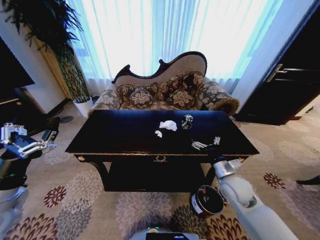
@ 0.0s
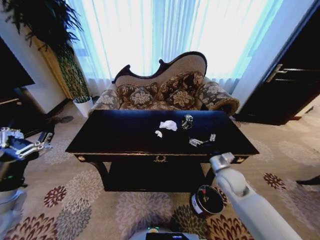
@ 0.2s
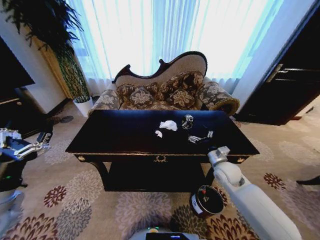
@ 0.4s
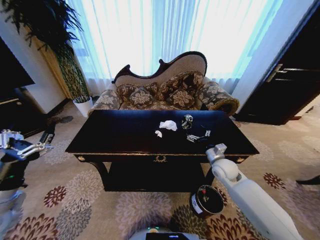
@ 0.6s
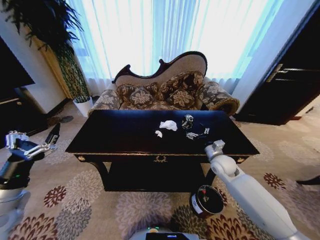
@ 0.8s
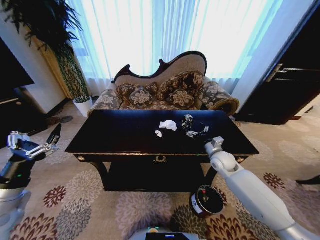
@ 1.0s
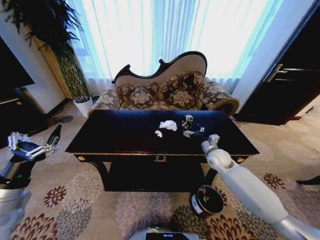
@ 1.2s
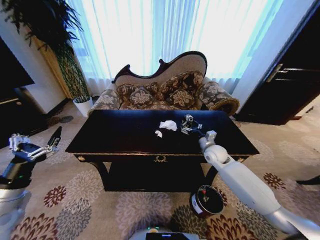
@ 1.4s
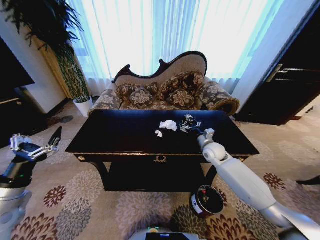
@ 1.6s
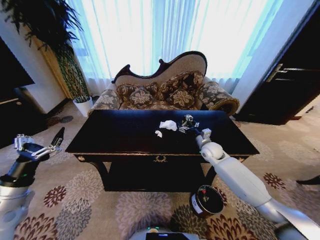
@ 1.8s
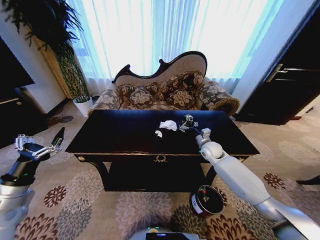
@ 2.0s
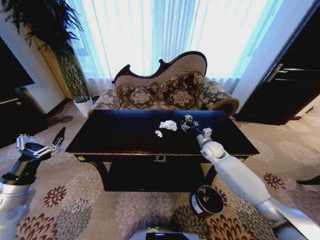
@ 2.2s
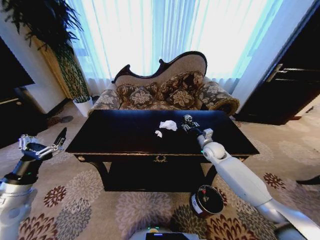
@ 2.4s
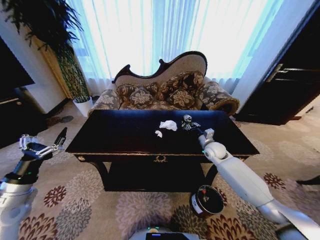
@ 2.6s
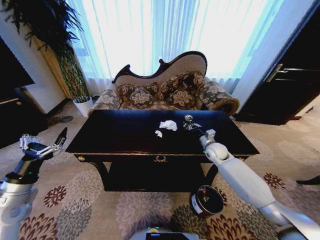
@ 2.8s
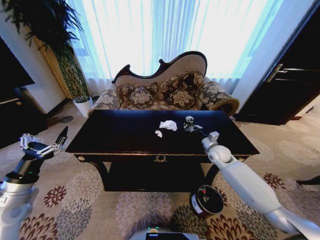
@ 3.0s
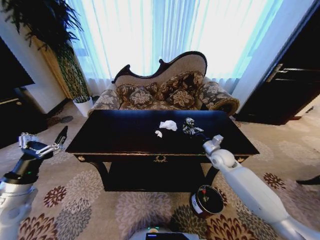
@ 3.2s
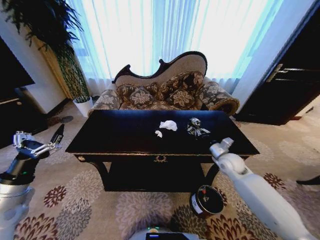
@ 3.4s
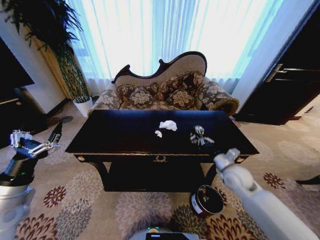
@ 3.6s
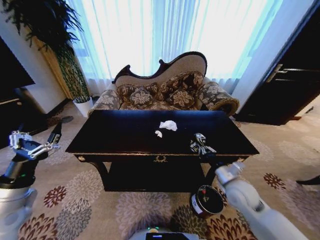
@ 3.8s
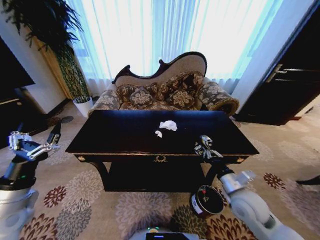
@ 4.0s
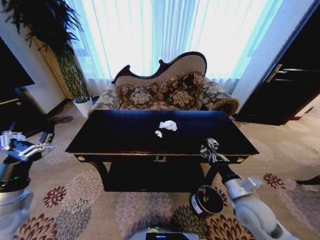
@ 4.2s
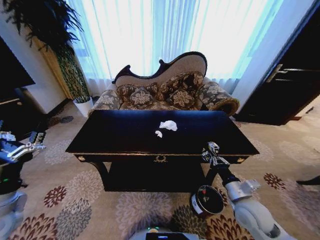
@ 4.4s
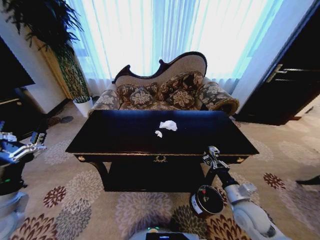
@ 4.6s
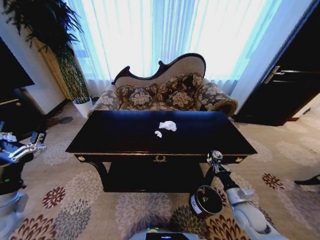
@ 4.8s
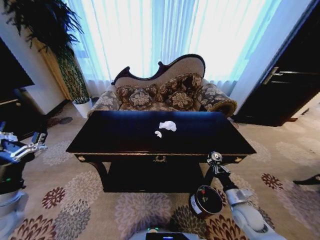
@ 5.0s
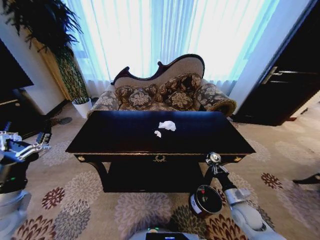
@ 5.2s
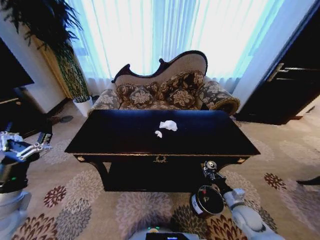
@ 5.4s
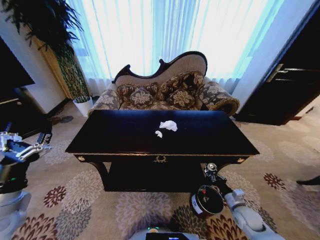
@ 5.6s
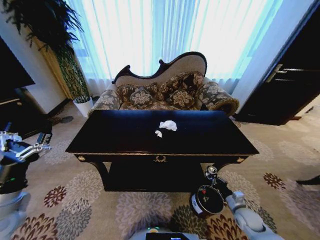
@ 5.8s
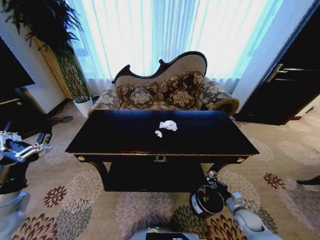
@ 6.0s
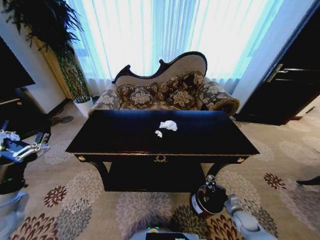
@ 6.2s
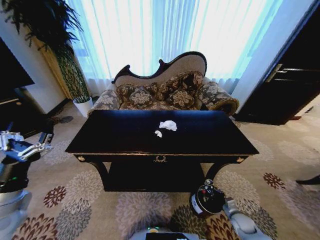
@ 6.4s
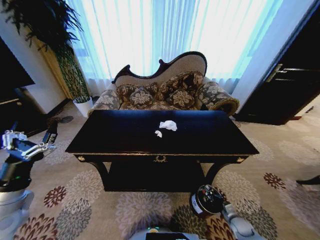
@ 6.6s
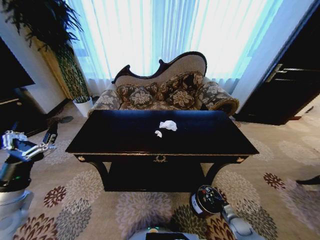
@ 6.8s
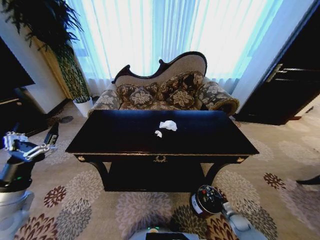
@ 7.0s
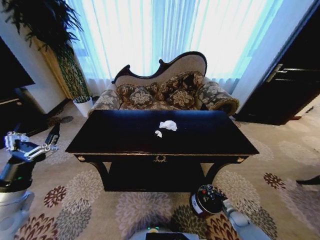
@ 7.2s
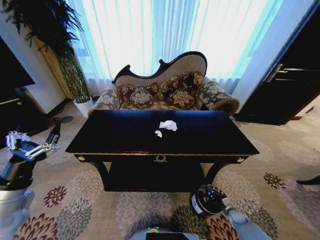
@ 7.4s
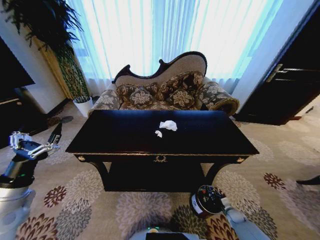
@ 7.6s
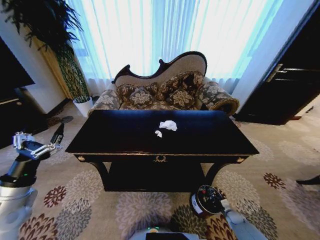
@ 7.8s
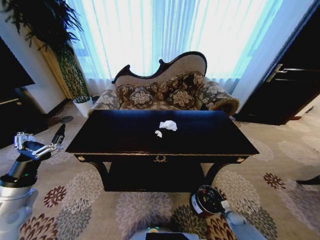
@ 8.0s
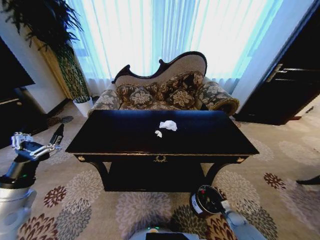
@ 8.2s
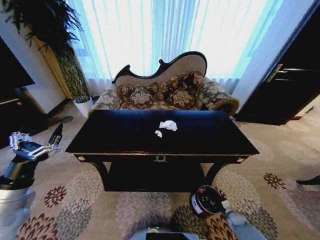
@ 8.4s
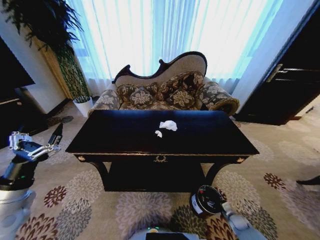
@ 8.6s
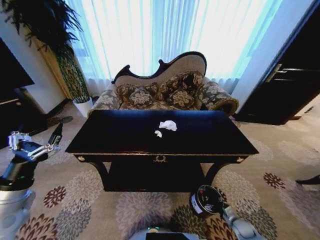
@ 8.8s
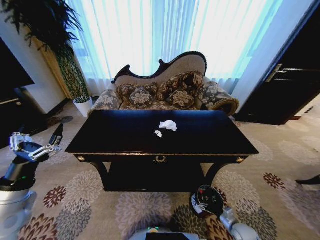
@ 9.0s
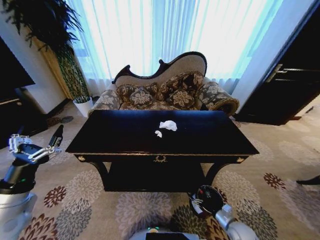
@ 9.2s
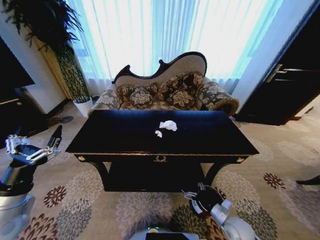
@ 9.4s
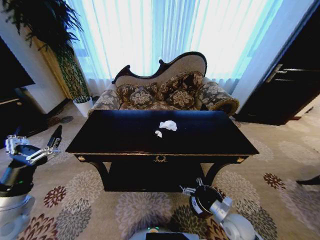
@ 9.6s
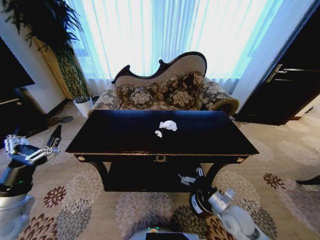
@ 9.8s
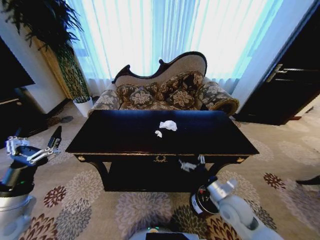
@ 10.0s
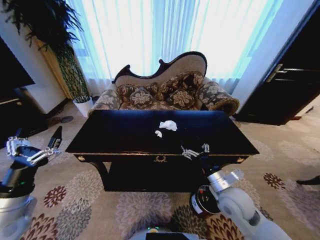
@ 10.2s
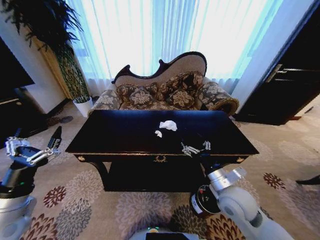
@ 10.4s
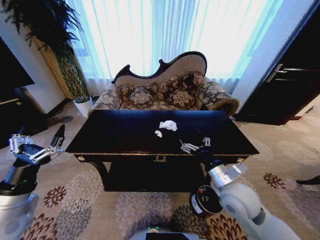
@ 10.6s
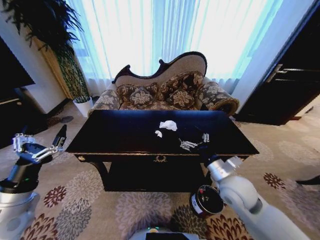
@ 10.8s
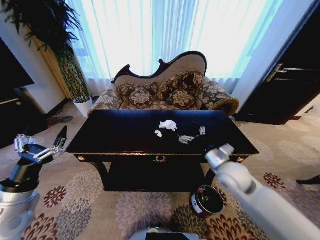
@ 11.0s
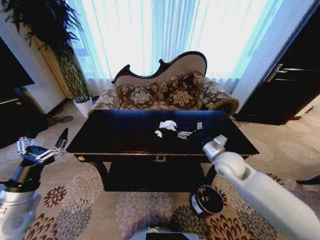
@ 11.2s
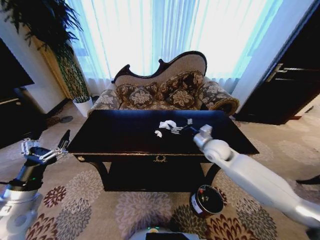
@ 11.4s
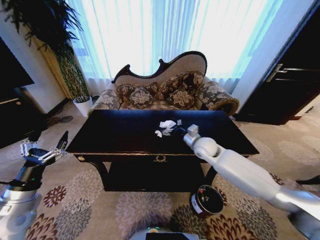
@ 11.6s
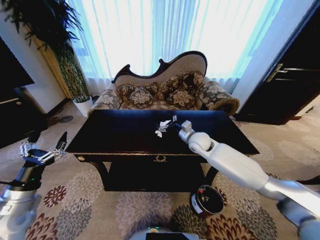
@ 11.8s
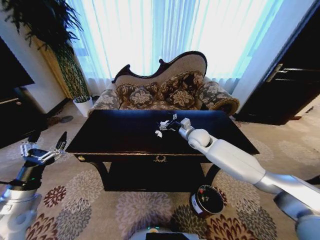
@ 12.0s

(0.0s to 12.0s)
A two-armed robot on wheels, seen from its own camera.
Task of the whole recording: Move to the front of the table and place the trash on the table into the trash bin.
0.0s - 1.6s: The right gripper shifts approximately 20 cm forward. Meanwhile the left gripper shifts by about 5 cm.
1.6s - 3.0s: The right gripper closes up.
3.0s - 4.4s: The left gripper shifts by about 5 cm; the right gripper heads backward, covering some 25 cm.
4.4s - 6.0s: The right gripper is displaced downward and to the right by approximately 25 cm.
6.0s - 7.6s: The right gripper moves downward, approximately 10 cm.
7.6s - 9.0s: The right gripper travels upward, backward and to the left by roughly 10 cm, and opens its fingers.
9.0s - 10.4s: The right gripper heads upward and to the left, covering approximately 35 cm.
10.4s - 12.0s: The right gripper shifts some 25 cm forward. Meanwhile the left gripper shifts by roughly 5 cm.

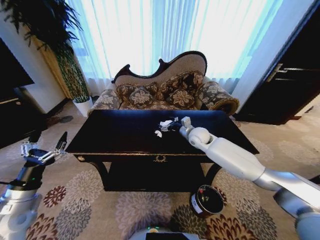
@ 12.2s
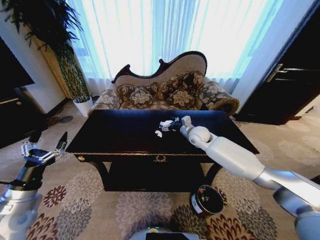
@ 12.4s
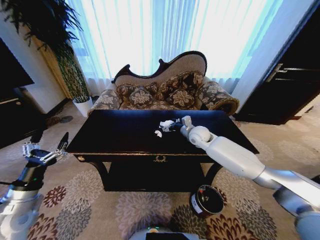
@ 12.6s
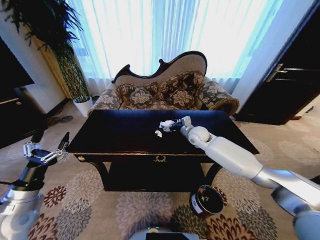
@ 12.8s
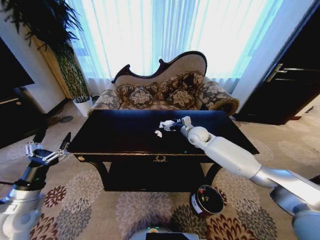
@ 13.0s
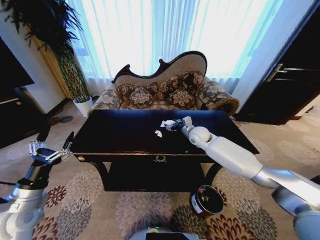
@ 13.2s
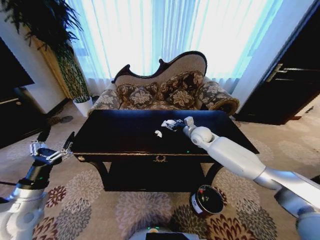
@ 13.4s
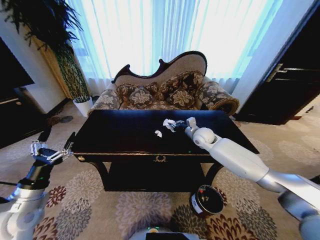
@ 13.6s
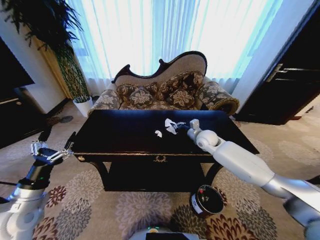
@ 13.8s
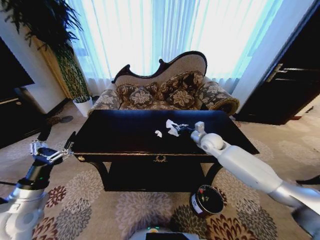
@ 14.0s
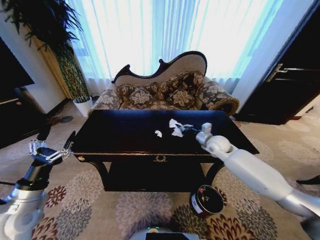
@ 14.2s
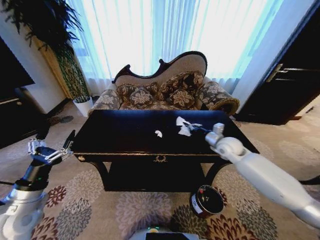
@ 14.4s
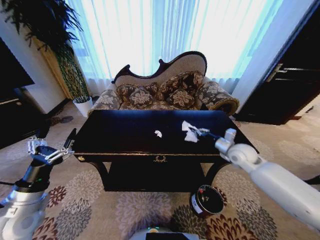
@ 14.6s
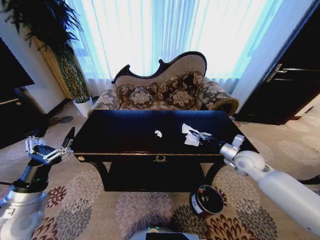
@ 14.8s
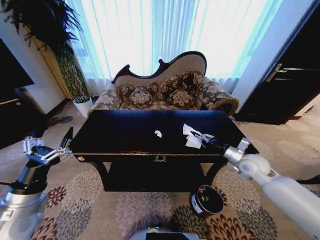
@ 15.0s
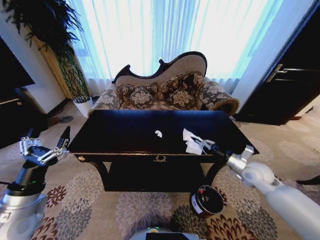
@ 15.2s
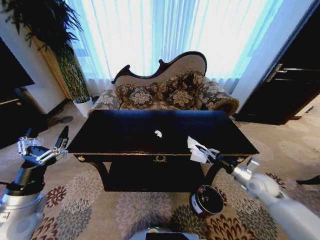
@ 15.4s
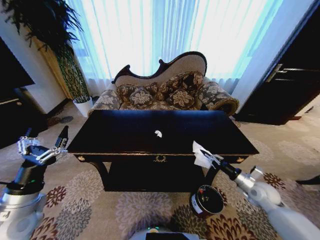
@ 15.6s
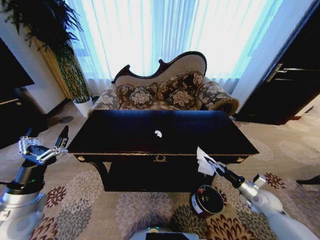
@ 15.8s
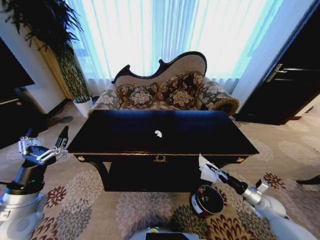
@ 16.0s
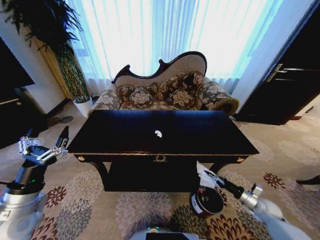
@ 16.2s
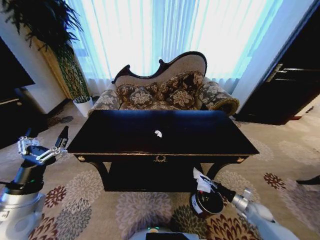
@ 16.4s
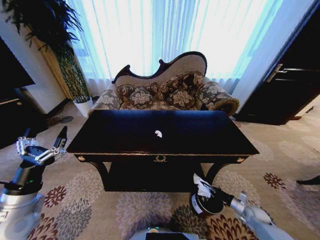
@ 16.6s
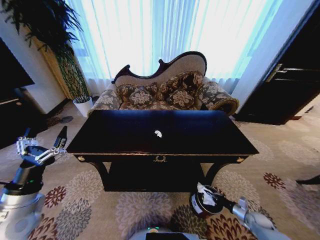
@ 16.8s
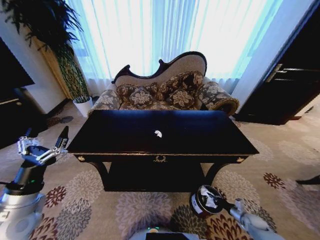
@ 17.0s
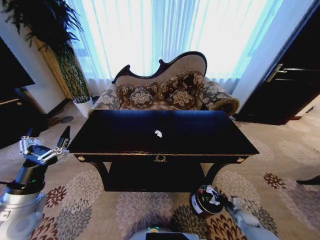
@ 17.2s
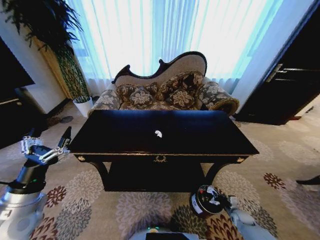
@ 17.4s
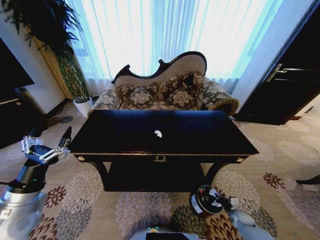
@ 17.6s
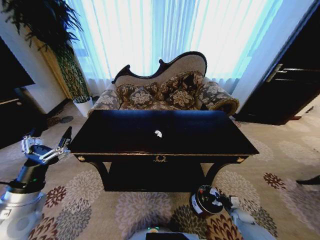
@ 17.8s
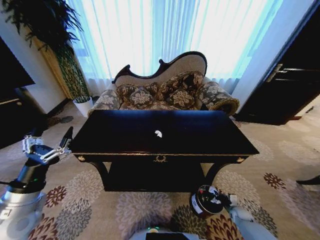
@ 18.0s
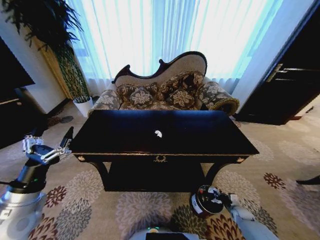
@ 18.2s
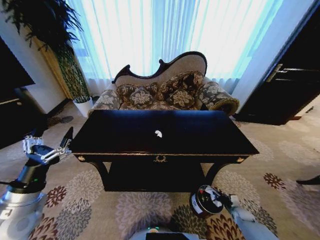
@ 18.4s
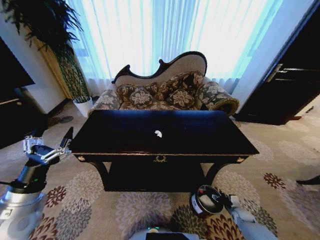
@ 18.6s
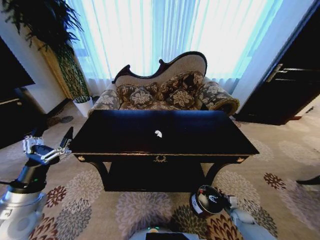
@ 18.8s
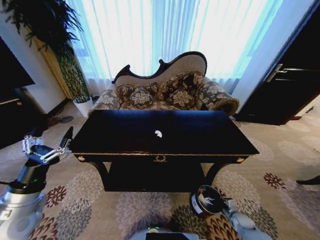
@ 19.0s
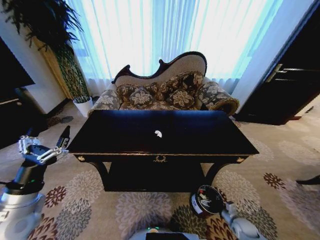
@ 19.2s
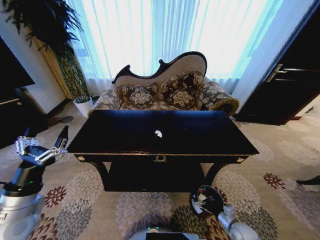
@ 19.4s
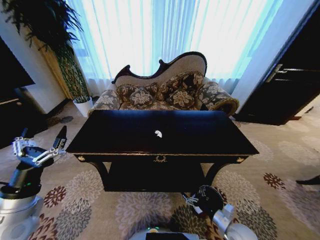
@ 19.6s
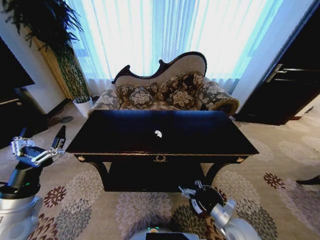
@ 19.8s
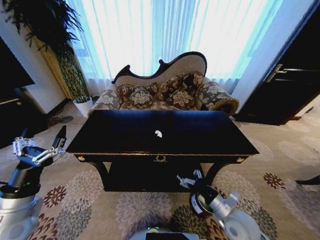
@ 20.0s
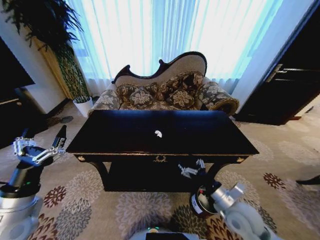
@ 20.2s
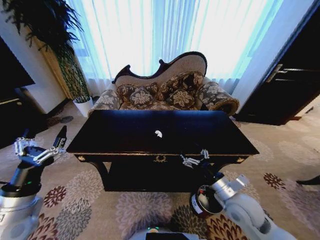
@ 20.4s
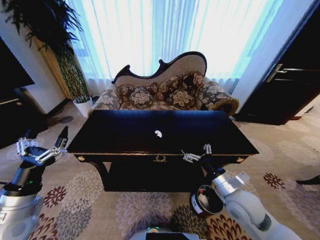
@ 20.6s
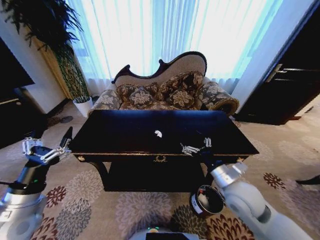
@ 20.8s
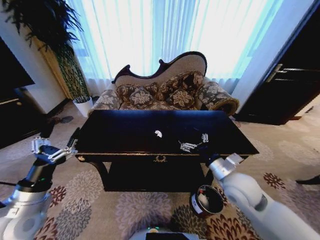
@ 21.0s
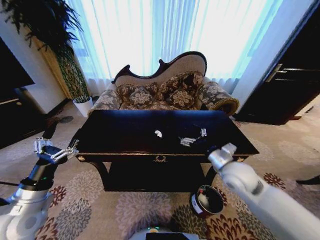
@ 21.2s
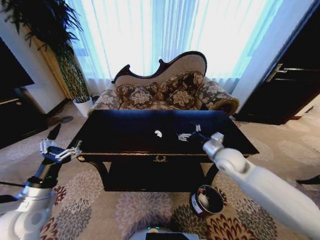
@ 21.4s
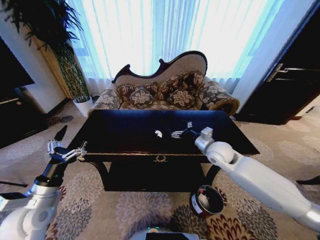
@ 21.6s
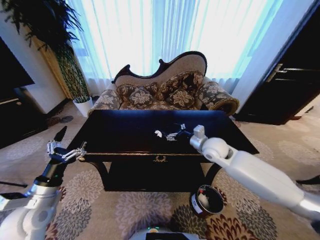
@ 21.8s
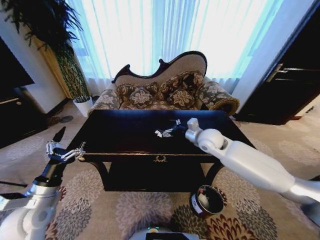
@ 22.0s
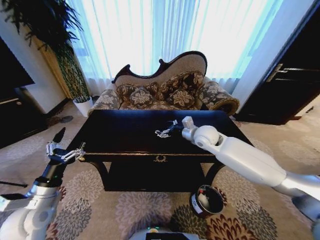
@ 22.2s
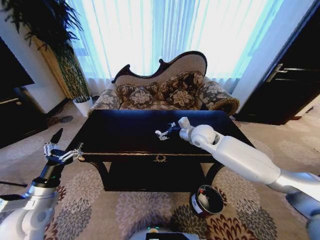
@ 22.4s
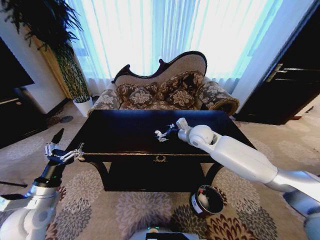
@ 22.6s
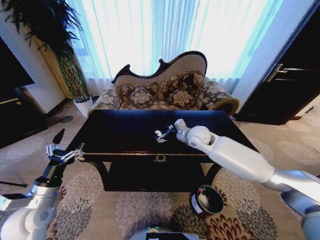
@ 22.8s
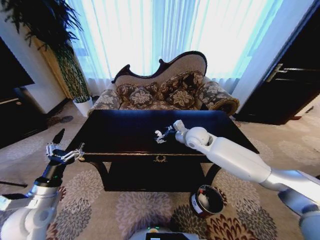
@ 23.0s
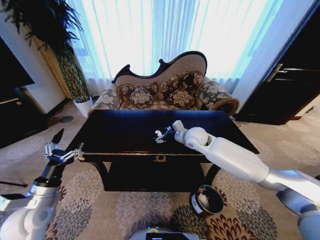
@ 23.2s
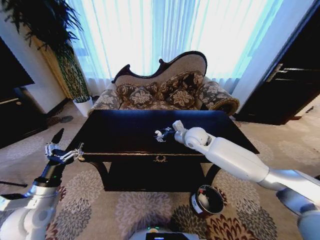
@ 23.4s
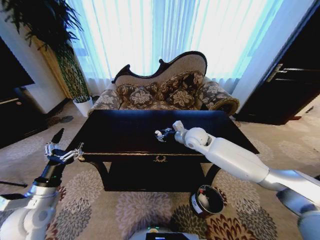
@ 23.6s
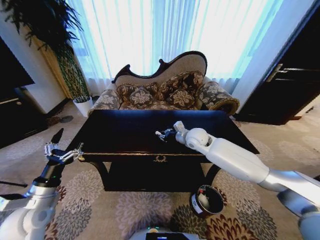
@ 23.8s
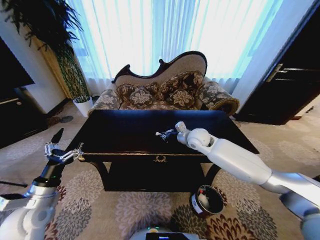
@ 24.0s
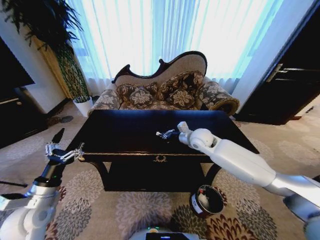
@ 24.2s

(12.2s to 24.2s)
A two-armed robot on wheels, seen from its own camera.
Task of the whole recording: Move to the front of the table and place the trash on the table into the trash bin.
12.2s - 13.8s: The right gripper closes up.
13.8s - 15.2s: The right gripper heads backward and to the right, covering about 25 cm.
15.2s - 16.6s: The right gripper is displaced downward and to the right by roughly 30 cm.
16.6s - 18.2s: The right gripper shifts about 5 cm downward.
18.2s - 19.8s: The right gripper moves upward, to the left and backward, roughly 30 cm, and opens.
19.8s - 21.2s: The right gripper is displaced upward and forward by roughly 25 cm.
21.2s - 22.6s: The right gripper heads forward and to the left, covering roughly 20 cm.
22.6s - 24.2s: The right gripper closes.
